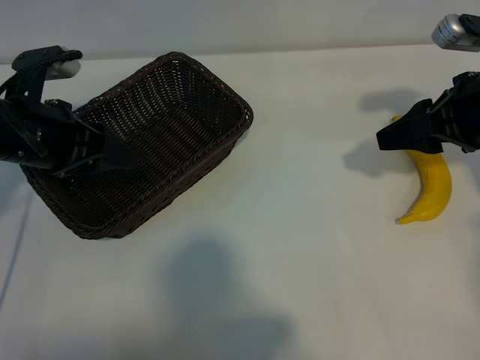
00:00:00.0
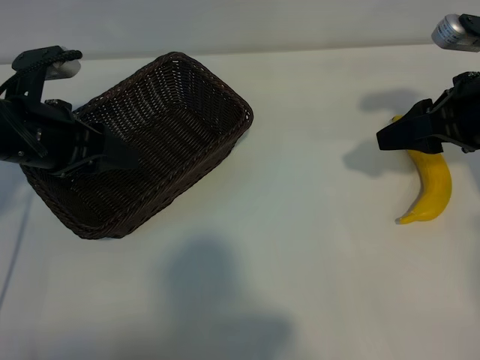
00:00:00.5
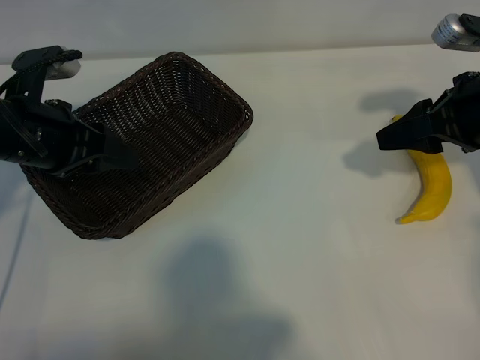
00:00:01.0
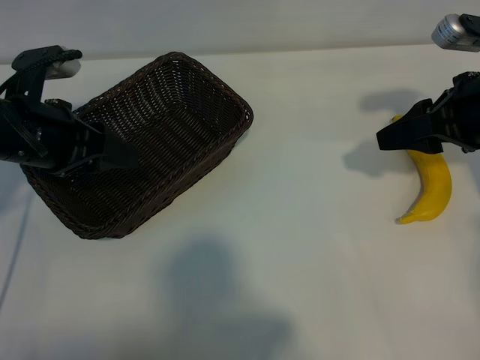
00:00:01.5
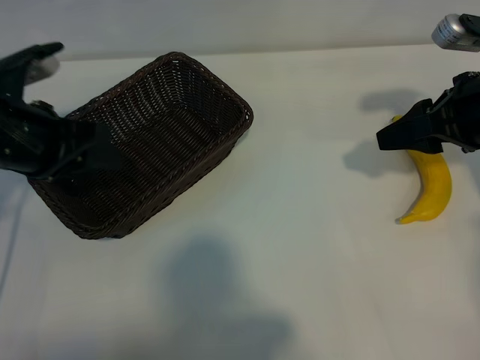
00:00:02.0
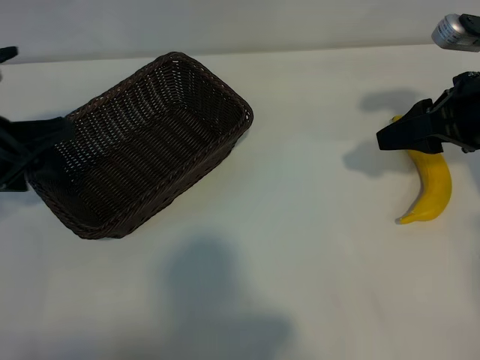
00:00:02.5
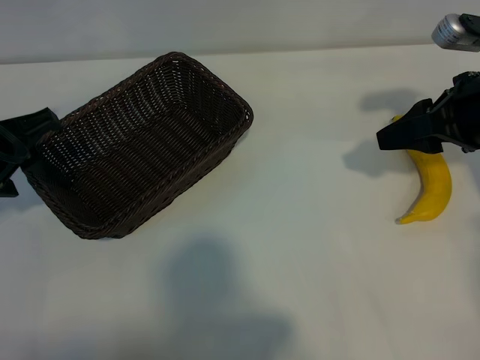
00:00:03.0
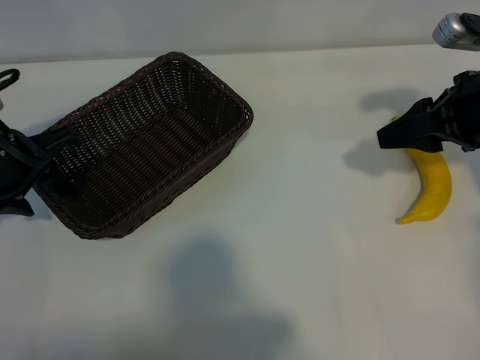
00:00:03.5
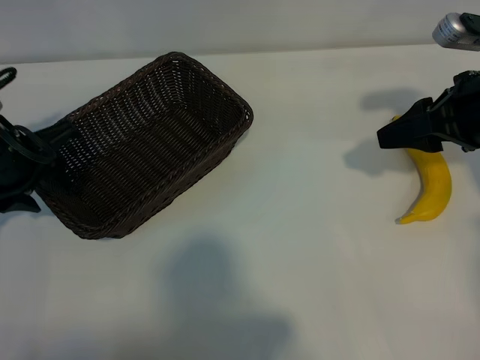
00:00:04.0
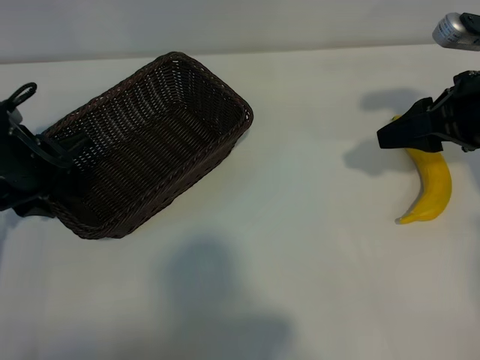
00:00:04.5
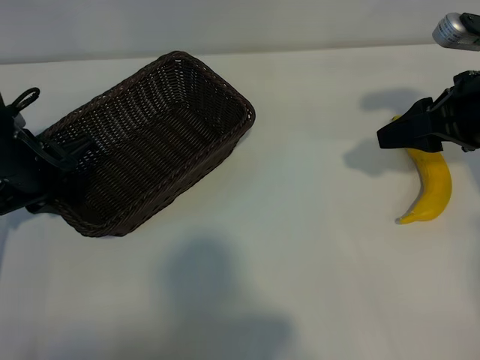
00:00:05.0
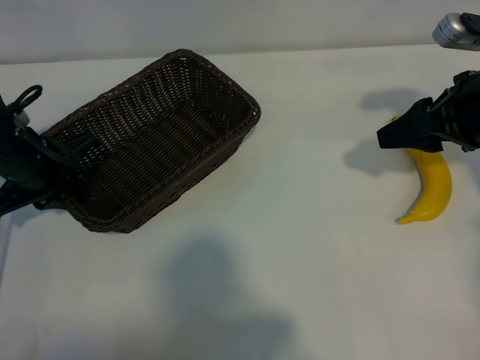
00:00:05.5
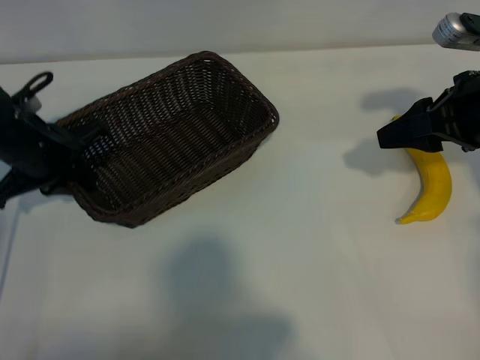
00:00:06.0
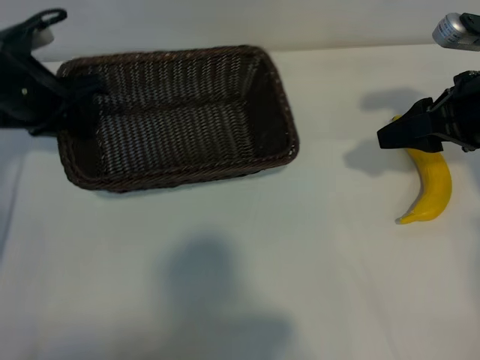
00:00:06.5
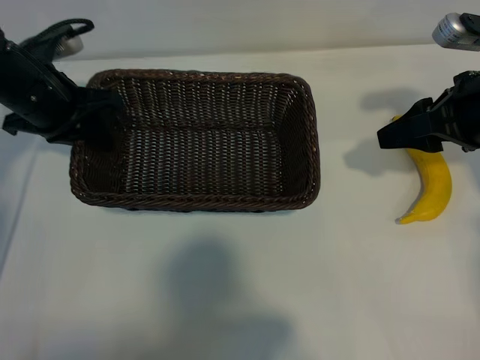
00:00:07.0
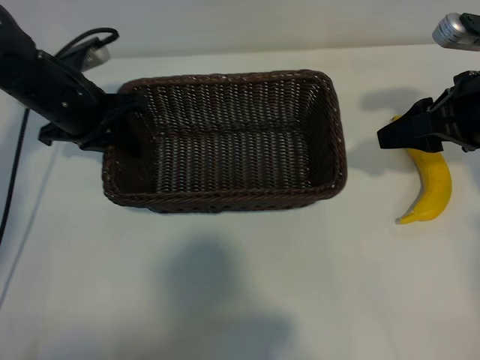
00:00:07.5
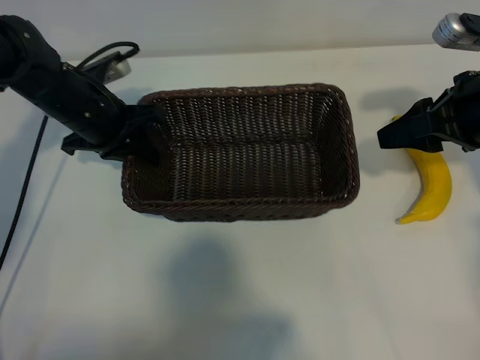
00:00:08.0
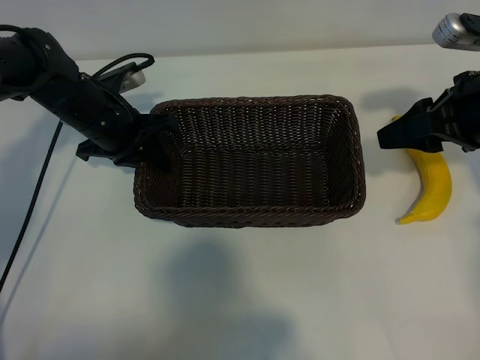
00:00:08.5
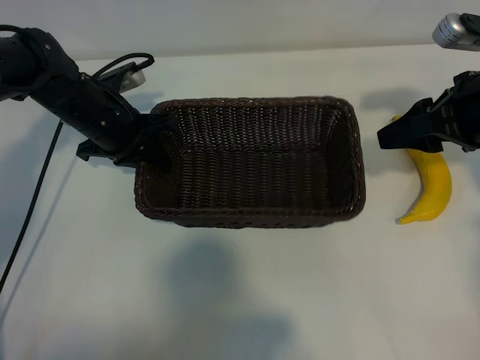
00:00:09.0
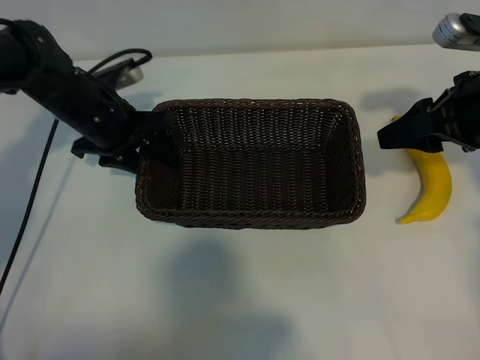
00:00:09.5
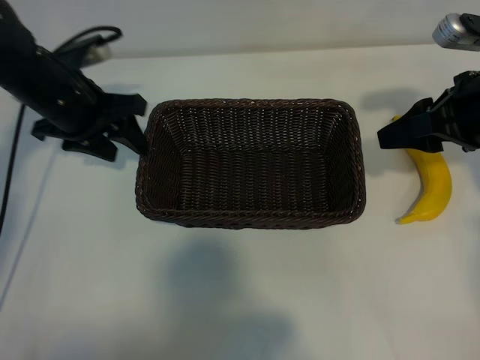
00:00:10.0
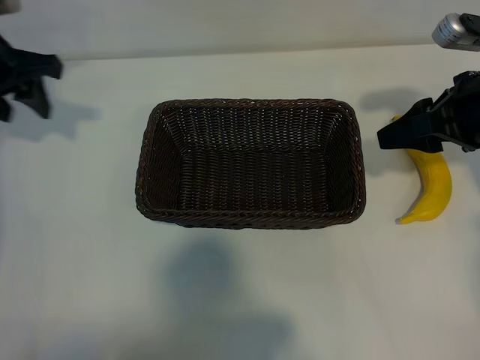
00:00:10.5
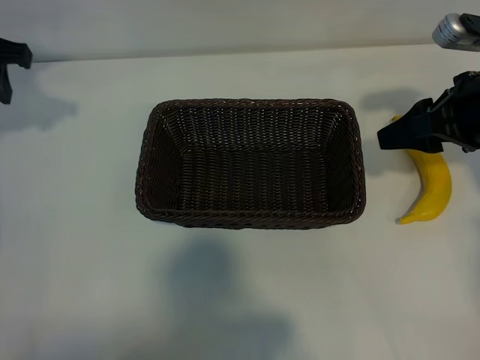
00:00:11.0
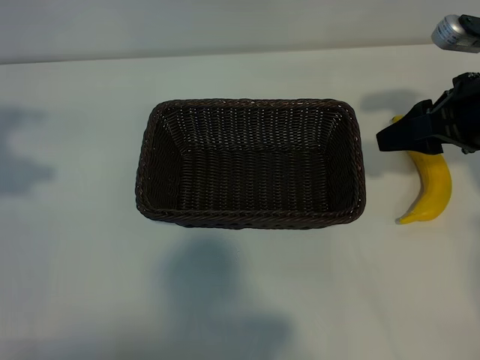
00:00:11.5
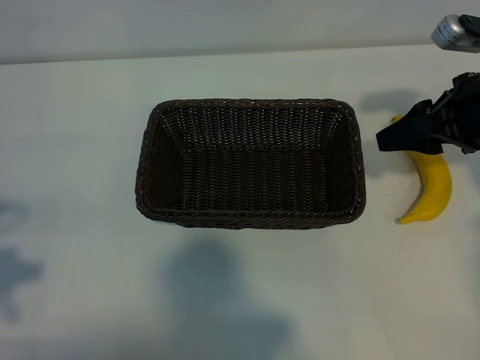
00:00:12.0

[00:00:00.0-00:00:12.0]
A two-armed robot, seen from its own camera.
Task of the whole recording: pick up the banana and put it into the basket.
Step, 00:00:01.5 to 00:00:05.5: Grasp the basket with the left gripper.
Step, 00:00:06.0 to 00:00:09.5: Place the basket in the center of the table with the left gripper.

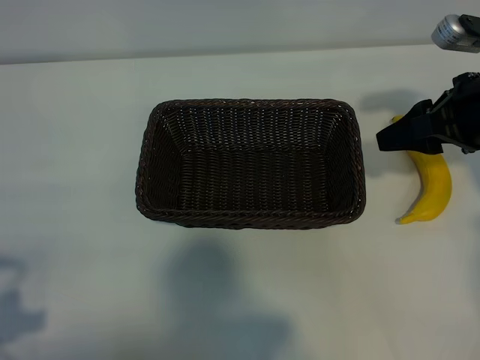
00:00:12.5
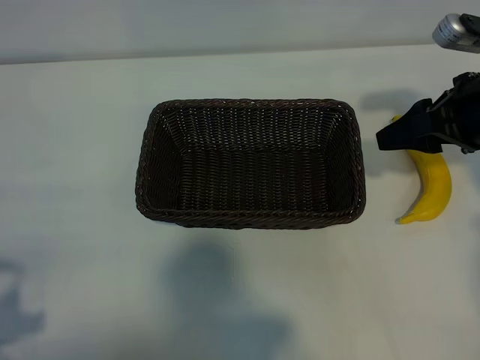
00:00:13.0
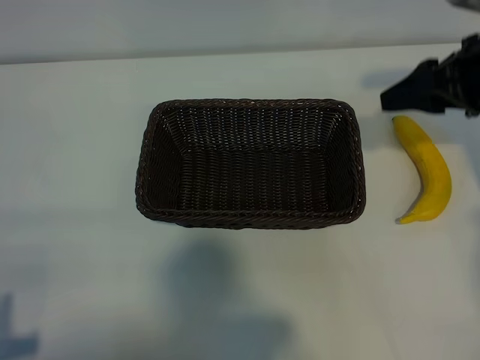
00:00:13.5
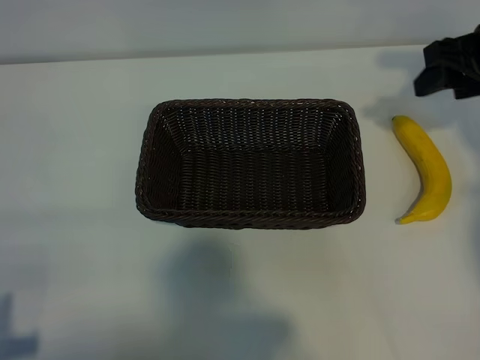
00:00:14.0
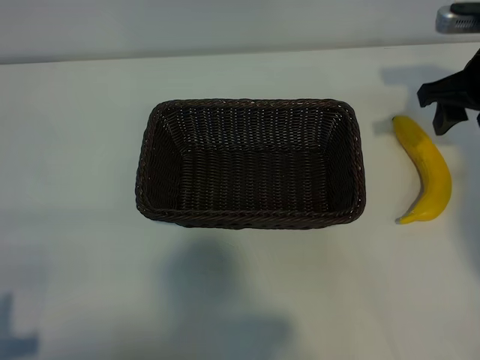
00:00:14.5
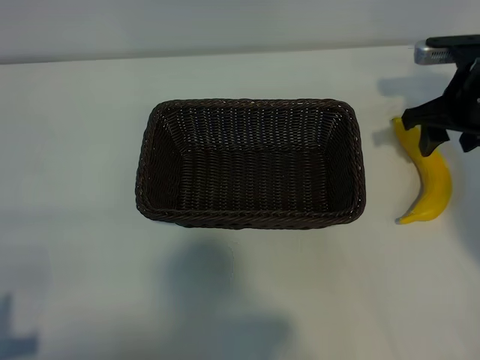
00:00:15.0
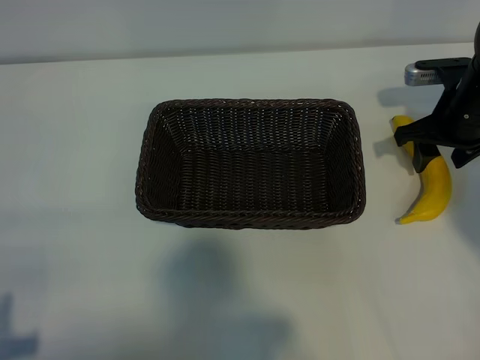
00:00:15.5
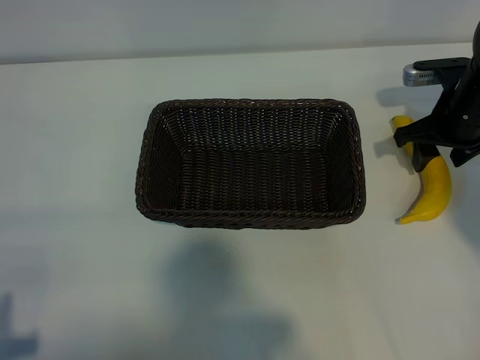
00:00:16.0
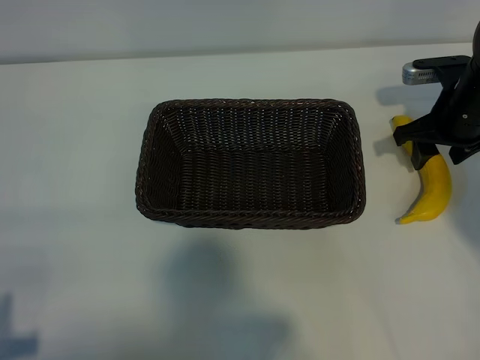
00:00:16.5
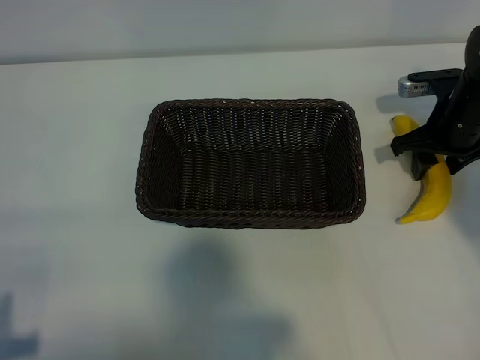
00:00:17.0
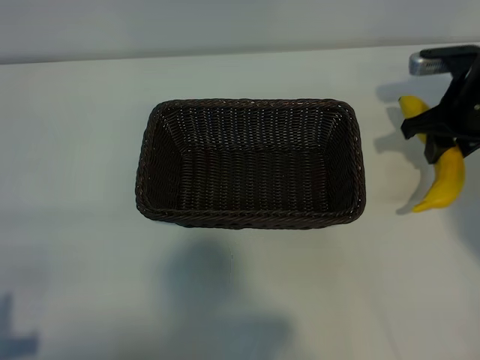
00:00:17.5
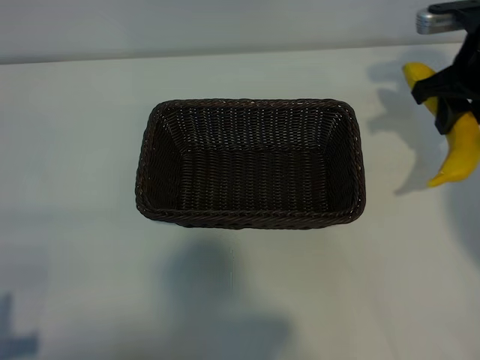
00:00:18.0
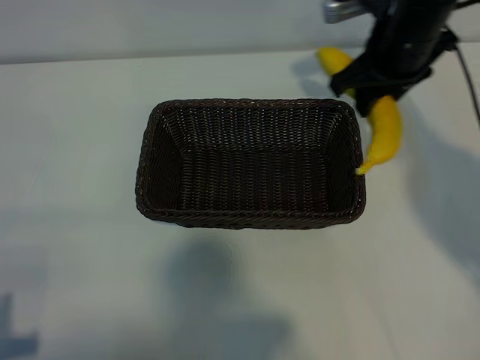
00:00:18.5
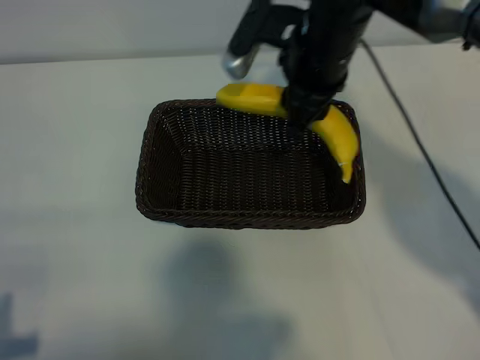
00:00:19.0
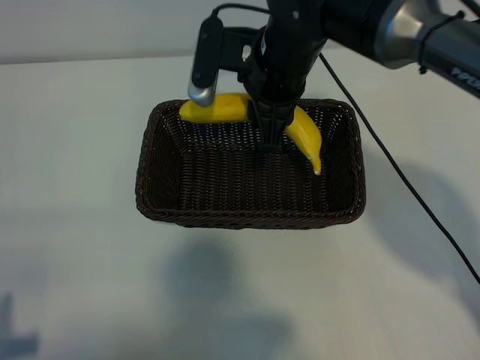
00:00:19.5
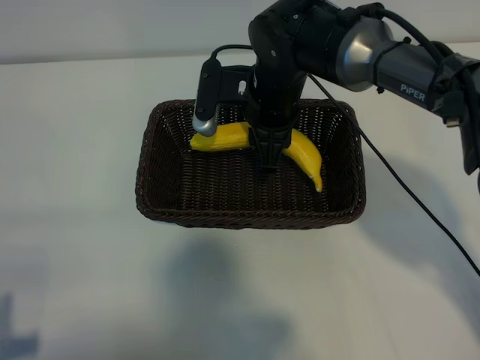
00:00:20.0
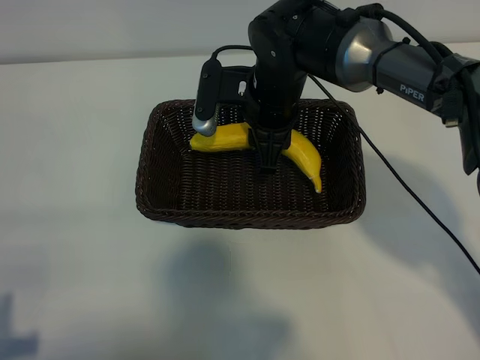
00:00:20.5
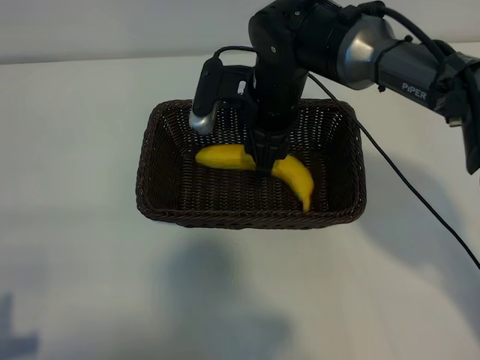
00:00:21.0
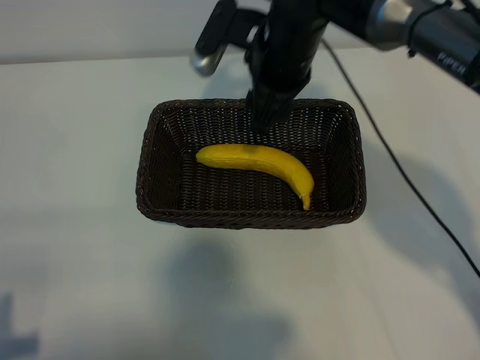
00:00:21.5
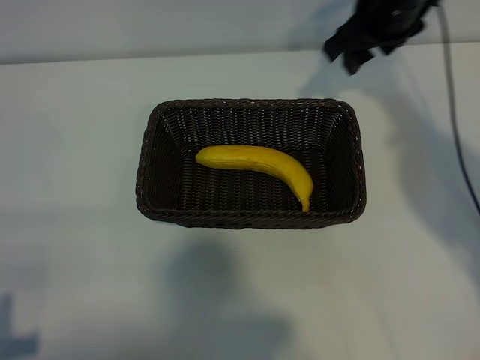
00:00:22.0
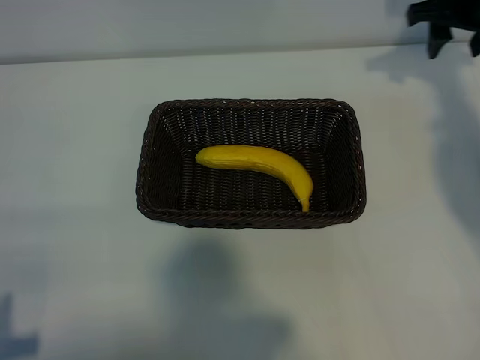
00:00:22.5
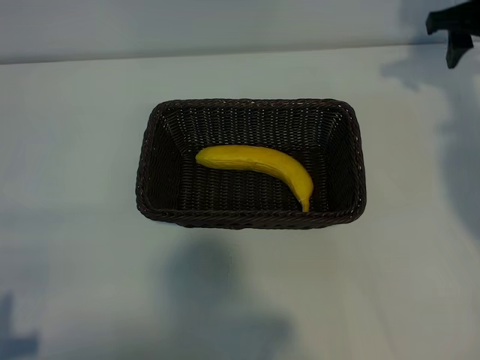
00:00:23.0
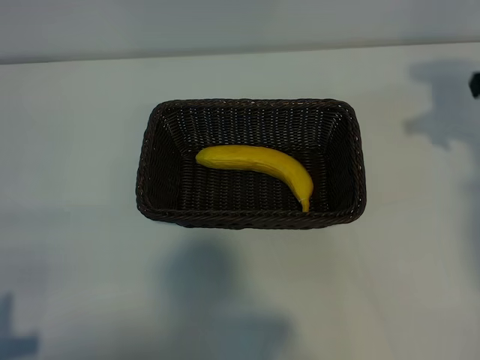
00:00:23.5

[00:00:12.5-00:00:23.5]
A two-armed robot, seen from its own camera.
Task of the whole recording: pick up the banana and put it into the basket.
Step, 00:00:12.5 to 00:00:17.0: Grasp the banana with right gripper.
Step, 00:00:17.5 to 00:00:21.0: Place the banana in the basket with right gripper.

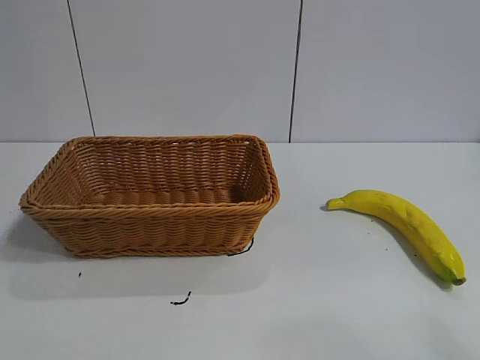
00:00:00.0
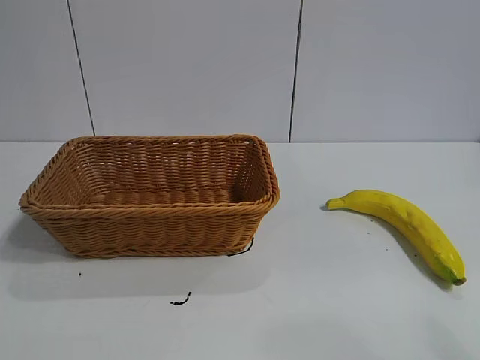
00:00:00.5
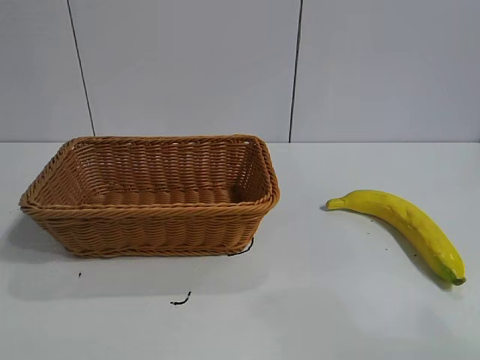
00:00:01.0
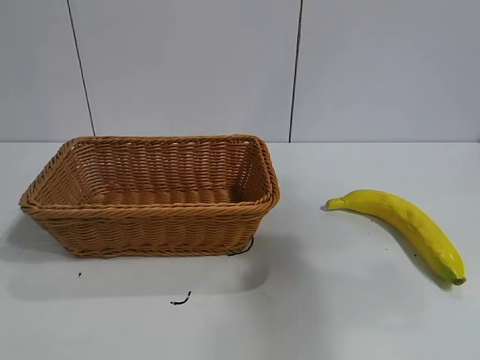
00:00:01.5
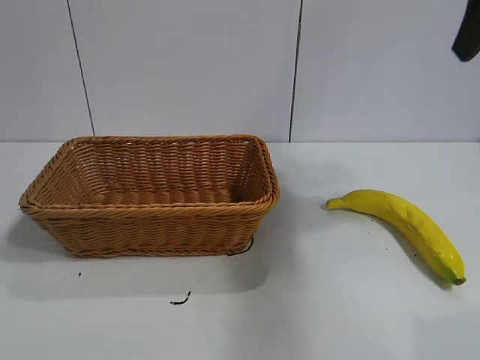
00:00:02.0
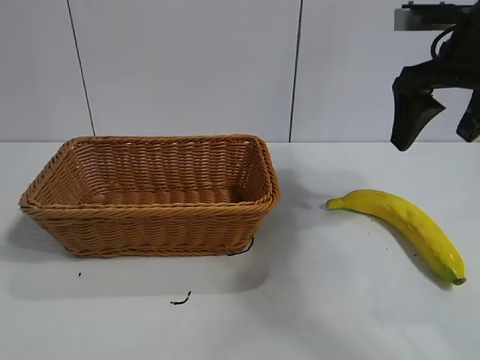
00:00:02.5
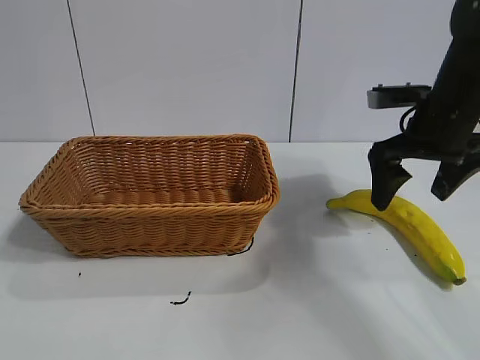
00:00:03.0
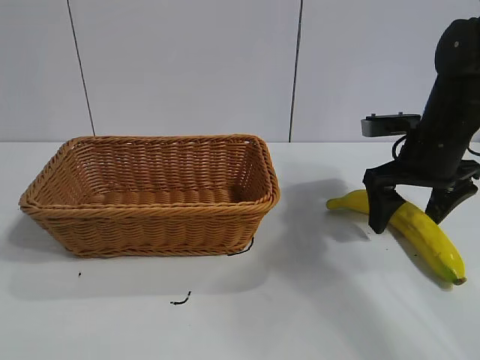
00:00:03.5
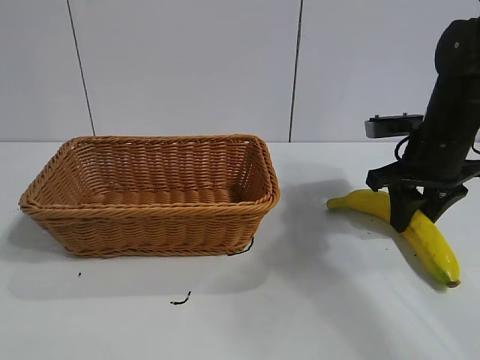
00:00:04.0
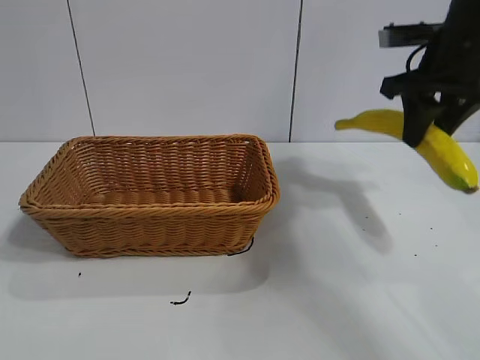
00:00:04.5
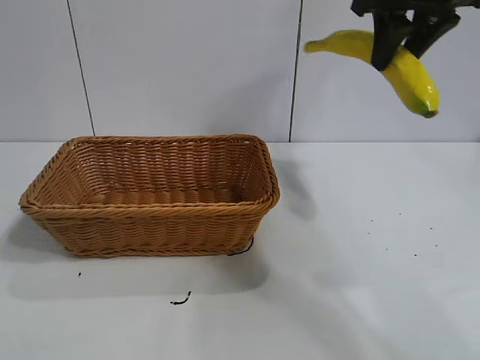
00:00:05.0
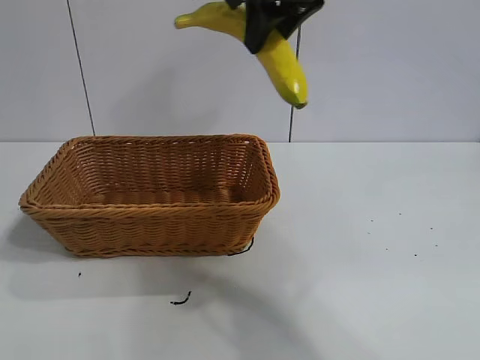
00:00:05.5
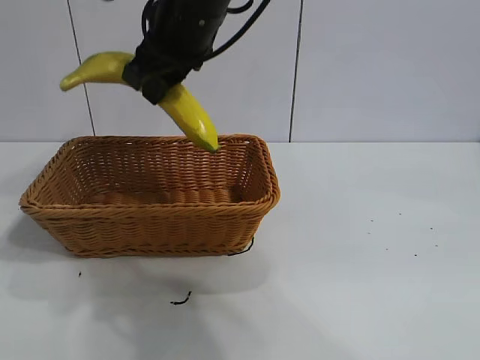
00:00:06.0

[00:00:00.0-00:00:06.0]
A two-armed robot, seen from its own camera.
Task of the whole recording: pick up the banana and put it into the basket.
Step, 00:00:02.0 to 00:00:04.0: Grasp the banana with right gripper.
